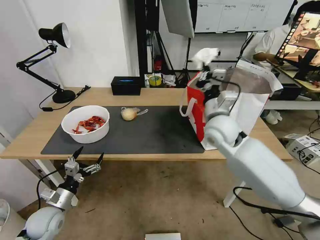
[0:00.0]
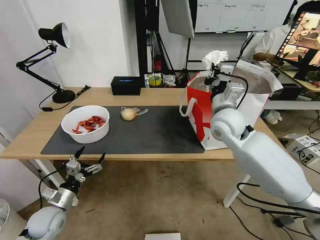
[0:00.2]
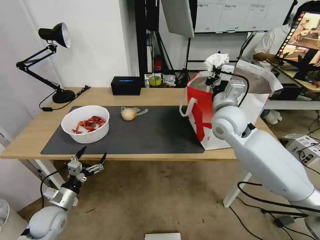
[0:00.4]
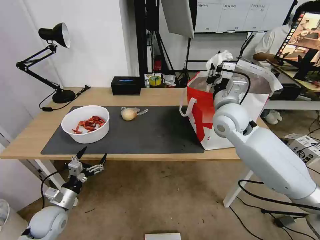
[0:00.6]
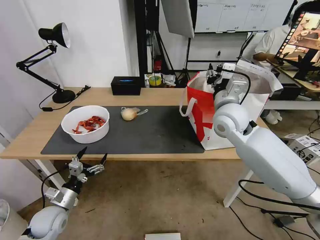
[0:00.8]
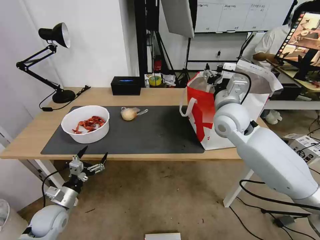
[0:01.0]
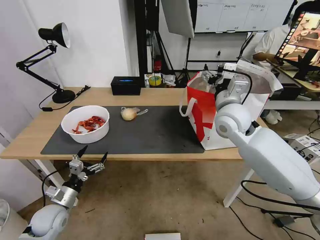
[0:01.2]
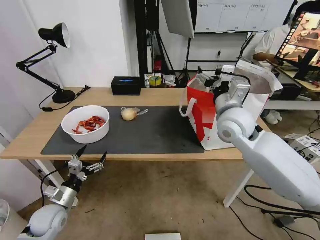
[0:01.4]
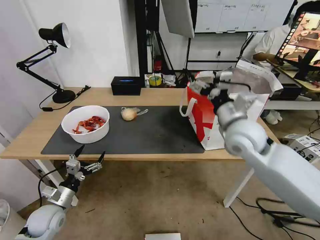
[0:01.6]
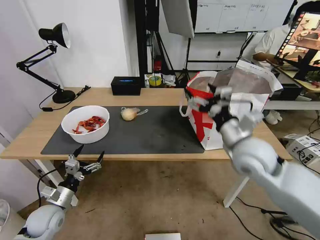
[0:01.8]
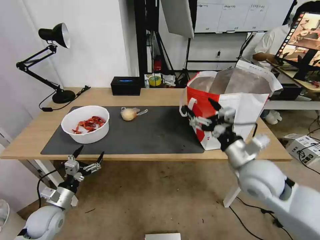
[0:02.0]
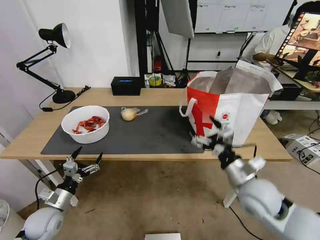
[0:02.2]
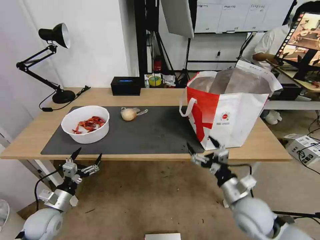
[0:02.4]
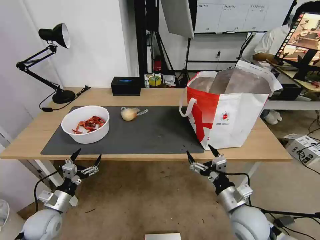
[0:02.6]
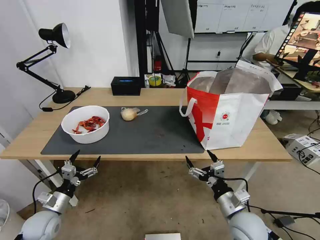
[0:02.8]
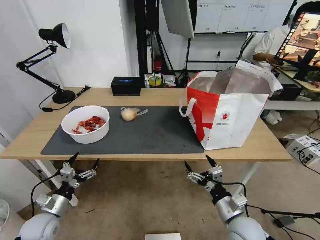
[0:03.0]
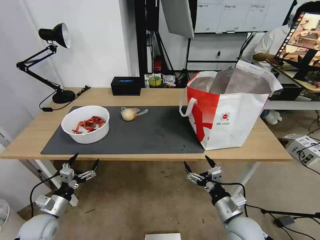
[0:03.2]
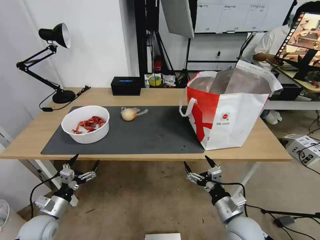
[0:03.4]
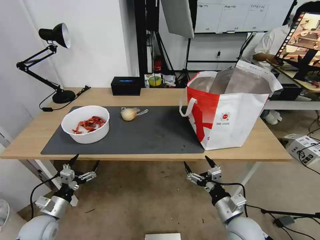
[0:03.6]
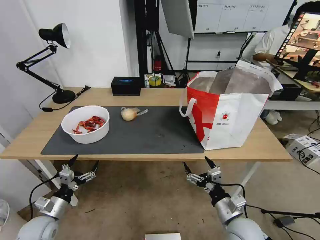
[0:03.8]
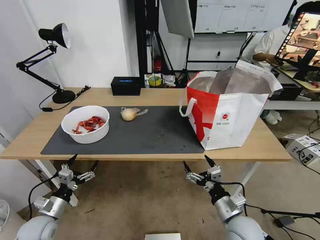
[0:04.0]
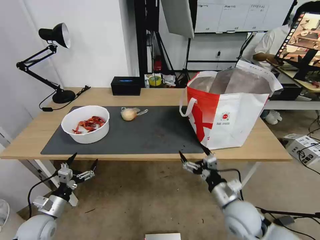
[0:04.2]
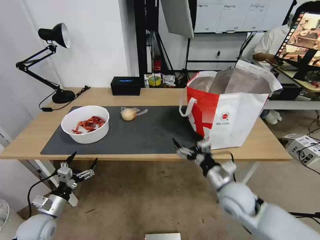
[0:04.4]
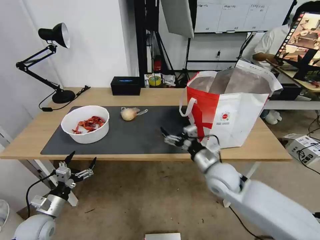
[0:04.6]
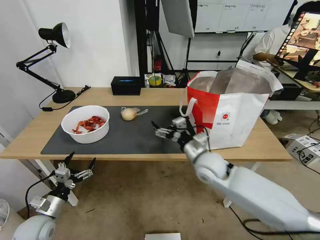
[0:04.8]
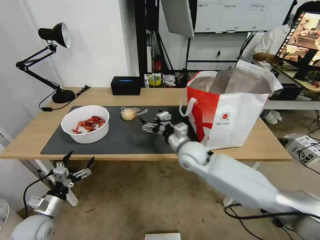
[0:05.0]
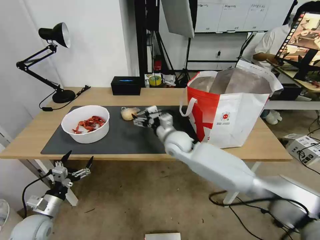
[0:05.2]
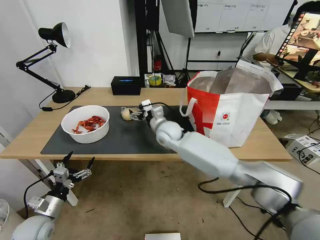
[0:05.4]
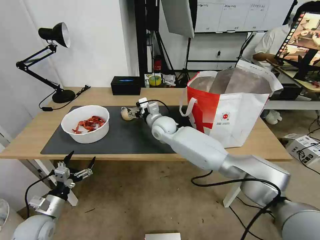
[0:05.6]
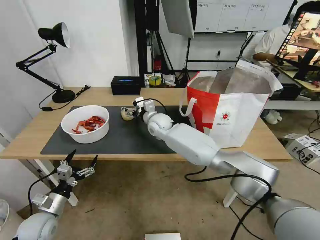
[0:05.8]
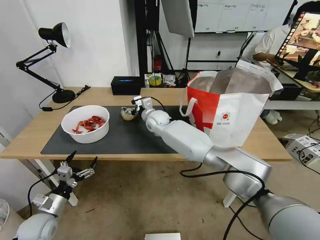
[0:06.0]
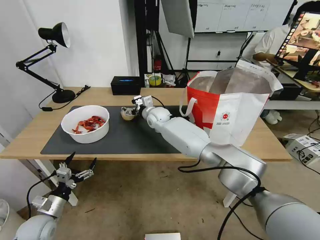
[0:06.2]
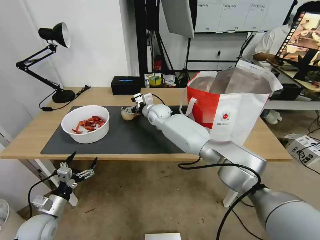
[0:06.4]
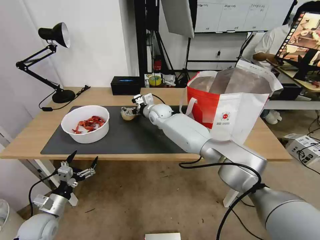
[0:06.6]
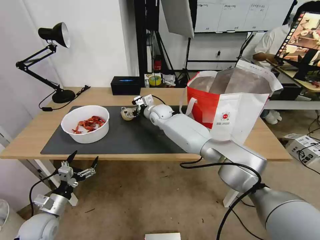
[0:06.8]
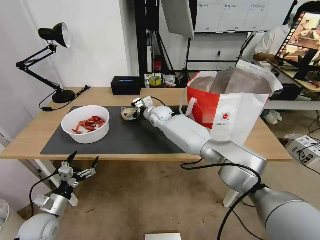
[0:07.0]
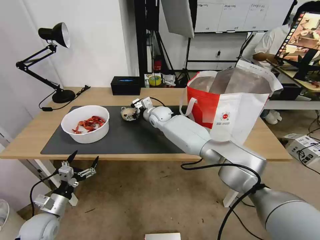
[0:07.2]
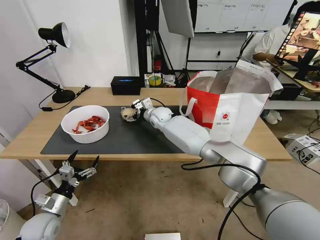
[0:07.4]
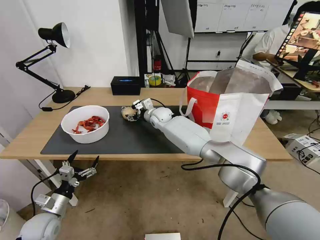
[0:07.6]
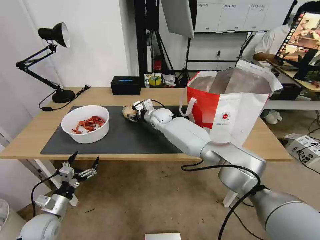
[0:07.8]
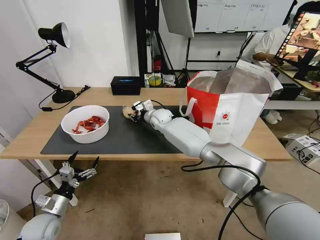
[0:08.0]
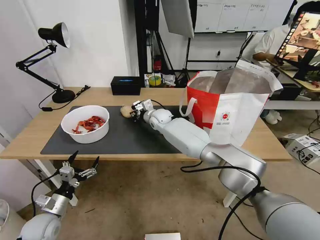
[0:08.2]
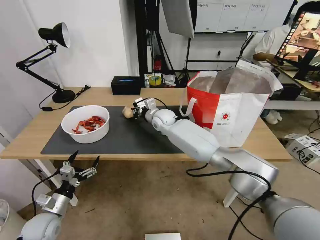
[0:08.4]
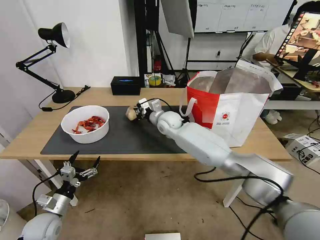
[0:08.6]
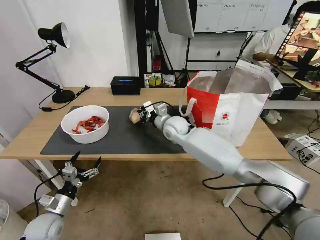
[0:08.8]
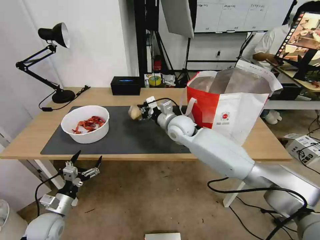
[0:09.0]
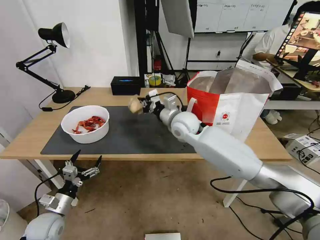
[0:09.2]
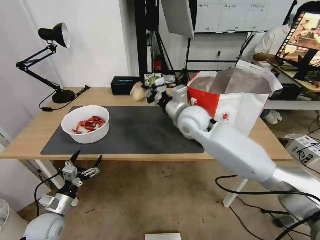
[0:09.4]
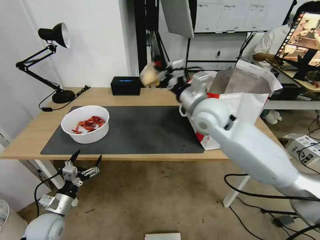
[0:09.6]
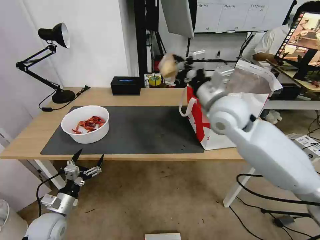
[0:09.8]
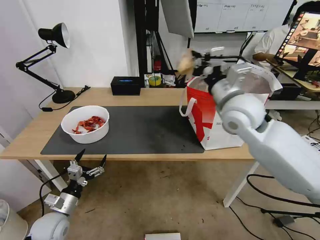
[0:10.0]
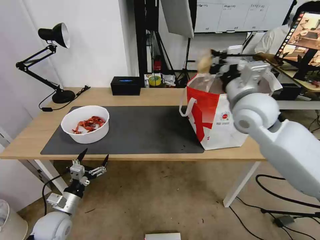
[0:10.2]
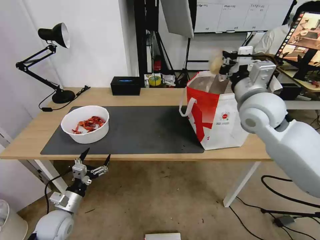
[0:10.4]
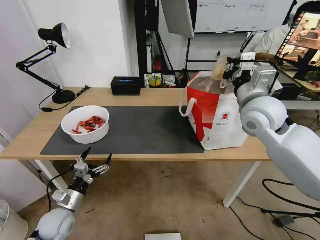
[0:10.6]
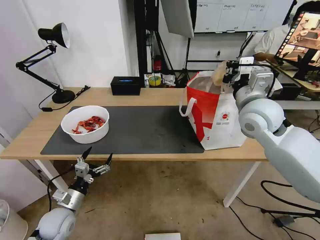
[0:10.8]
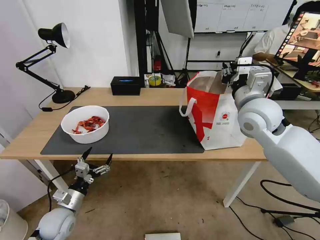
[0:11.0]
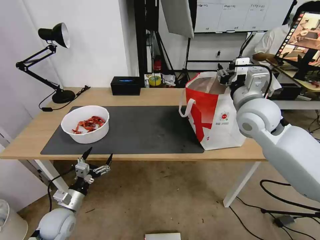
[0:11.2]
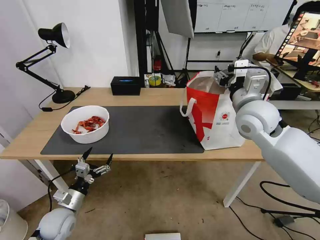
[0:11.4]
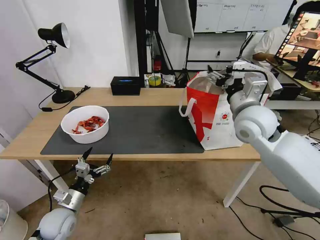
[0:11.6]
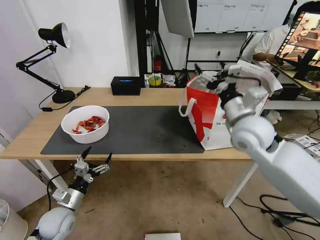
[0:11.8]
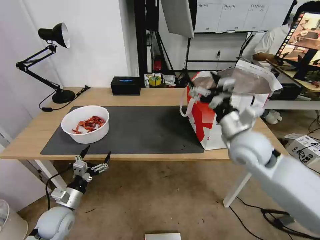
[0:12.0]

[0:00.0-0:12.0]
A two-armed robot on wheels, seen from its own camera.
Task of the whole recording: Pick up the trash from the table and place it into the takeout bag.
0:00.0 to 0:01.6: The right gripper is displaced backward by roughly 5 cm, and opens.
0:01.6 to 0:03.0: The right gripper travels downward and backward by some 30 cm.
0:03.0 to 0:04.4: The right gripper shifts roughly 5 cm forward.
0:04.4 to 0:06.0: The right gripper shifts about 40 cm forward and to the left.
0:06.0 to 0:07.6: The grippers make only small movements.
0:07.6 to 0:09.0: The right gripper moves backward and to the right, some 15 cm, and closes up.
0:09.0 to 0:10.4: The right gripper goes approximately 25 cm to the right, upward and backward.
0:10.4 to 0:12.0: The right gripper heads downward and backward, covering about 10 cm, and opens.

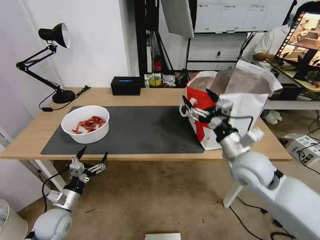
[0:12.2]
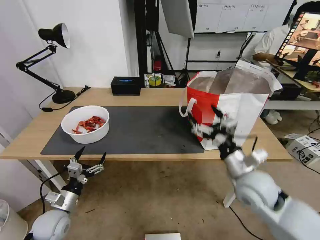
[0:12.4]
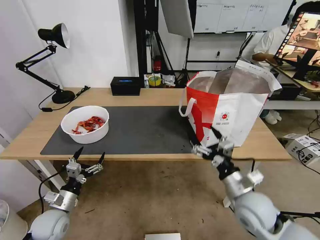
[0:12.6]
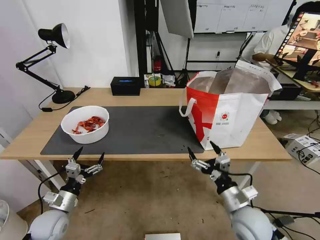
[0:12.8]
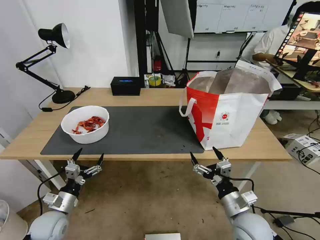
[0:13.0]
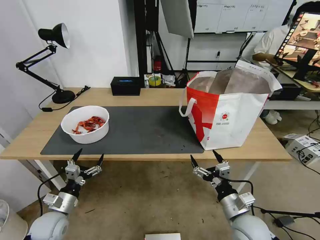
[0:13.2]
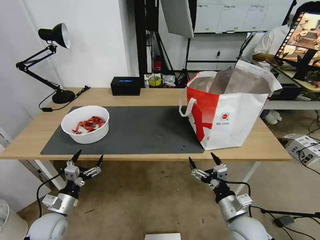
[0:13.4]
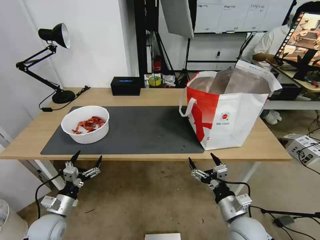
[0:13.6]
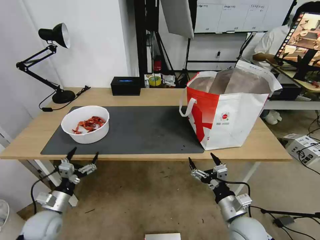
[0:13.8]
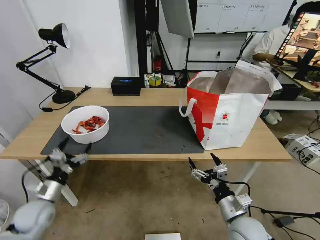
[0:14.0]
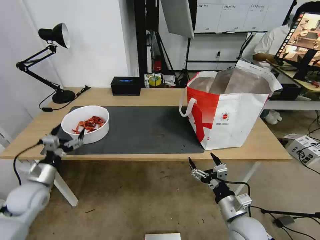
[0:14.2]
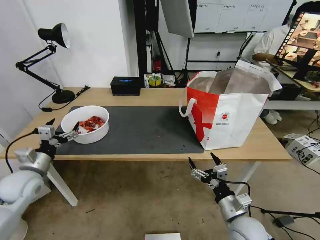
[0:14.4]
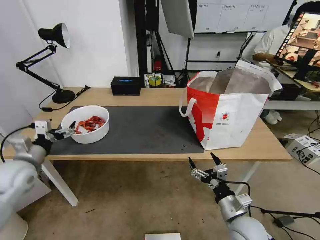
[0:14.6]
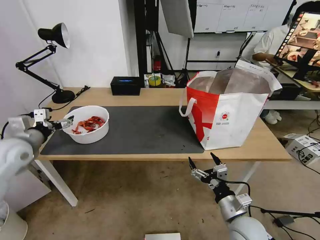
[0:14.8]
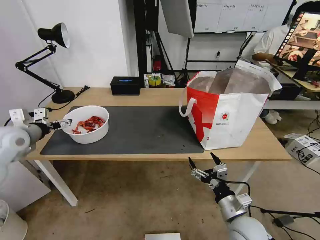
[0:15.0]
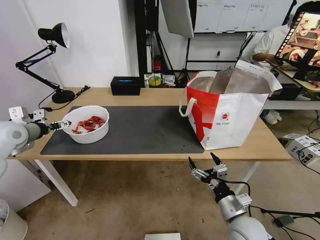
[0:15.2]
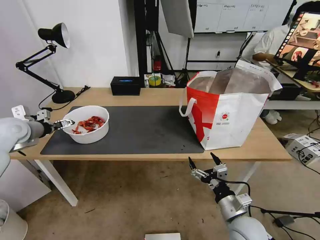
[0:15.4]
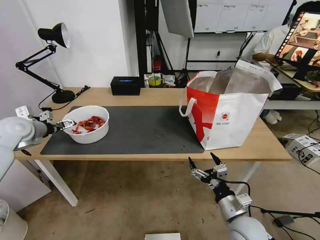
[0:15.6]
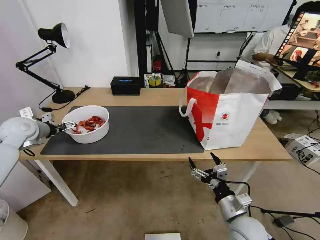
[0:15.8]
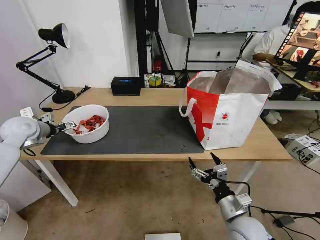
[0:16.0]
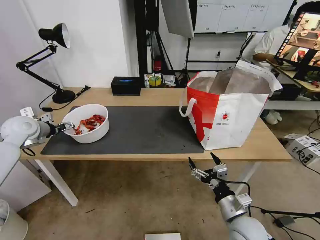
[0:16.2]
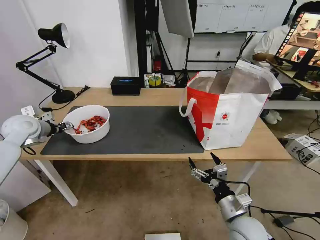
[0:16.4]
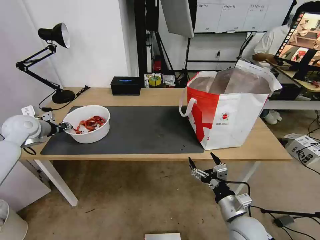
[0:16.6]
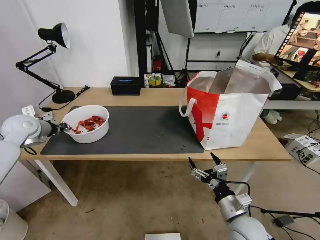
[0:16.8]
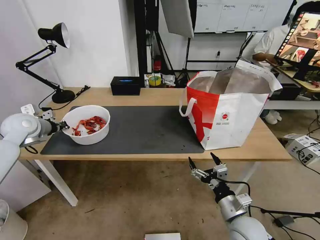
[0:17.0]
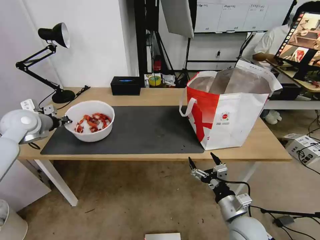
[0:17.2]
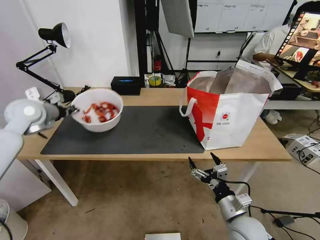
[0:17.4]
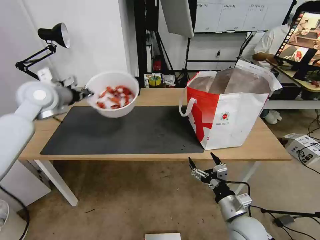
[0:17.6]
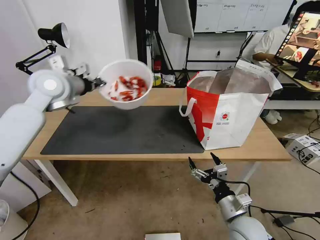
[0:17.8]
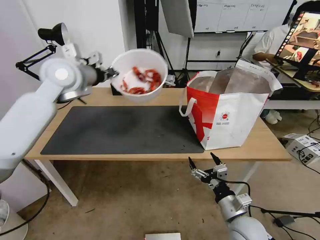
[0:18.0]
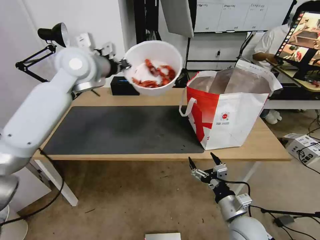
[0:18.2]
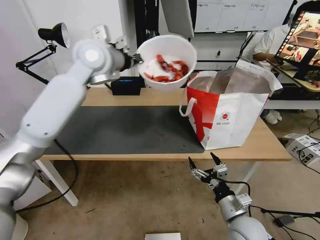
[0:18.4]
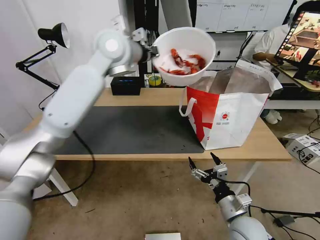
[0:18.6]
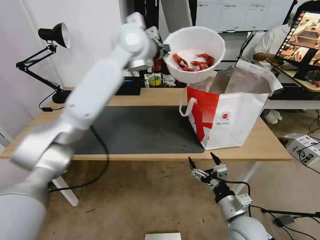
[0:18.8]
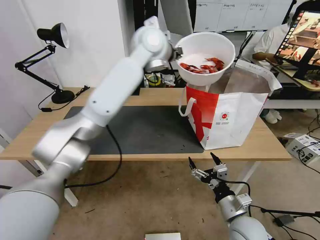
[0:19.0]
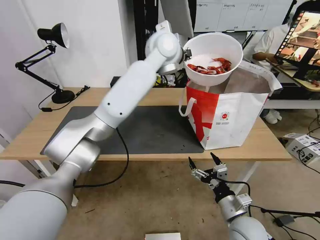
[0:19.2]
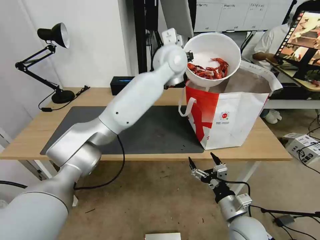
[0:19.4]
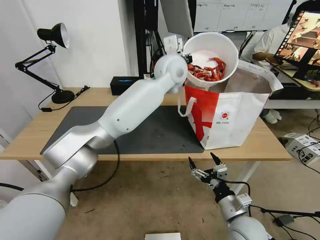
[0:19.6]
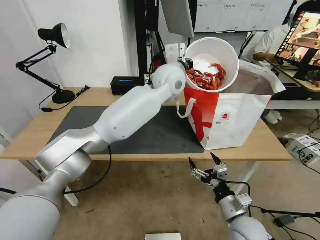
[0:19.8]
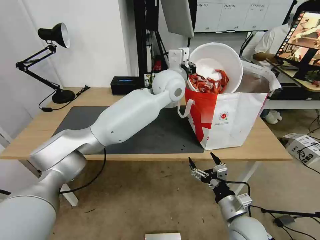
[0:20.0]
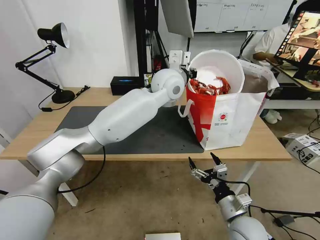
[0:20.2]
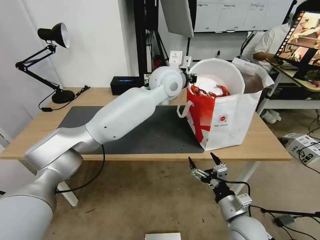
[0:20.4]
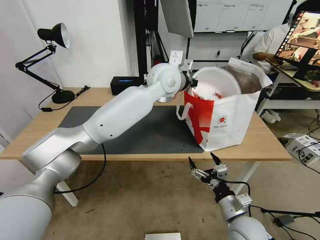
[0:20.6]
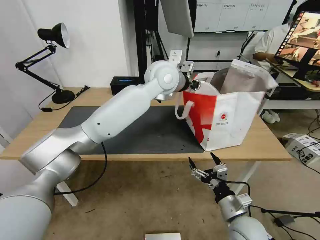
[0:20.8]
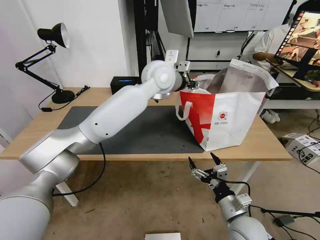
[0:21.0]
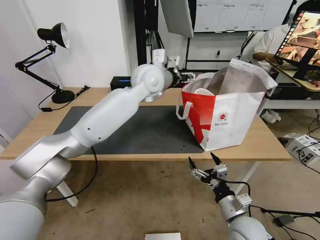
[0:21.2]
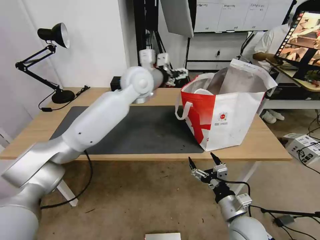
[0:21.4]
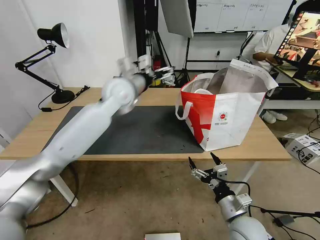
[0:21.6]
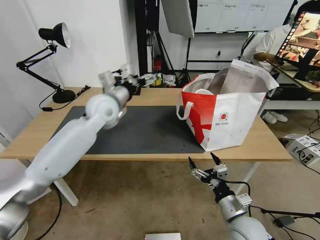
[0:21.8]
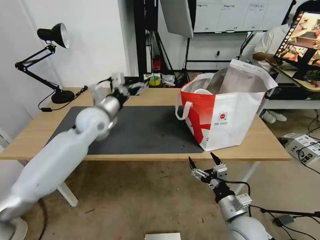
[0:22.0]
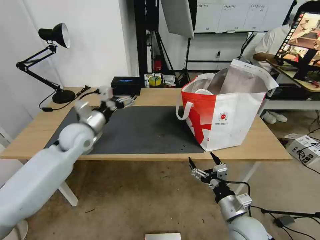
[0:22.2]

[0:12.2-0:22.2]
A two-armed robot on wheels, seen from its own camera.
Task of the whole recording: Pick up the trash from the table and place it into the takeout bag.
0:12.2 to 0:13.6: The right gripper is displaced downward and backward by roughly 20 cm.
0:13.6 to 0:15.0: The left gripper goes some 30 cm upward and forward.
0:15.0 to 0:16.4: The left gripper shifts about 5 cm forward, and closes up.
0:16.4 to 0:18.0: The left gripper moves to the right and upward, some 25 cm, and closes its fingers.
0:18.0 to 0:19.4: The left gripper is displaced to the right by roughly 30 cm.
0:19.4 to 0:20.8: The left gripper shifts by roughly 5 cm, and opens.
0:20.8 to 0:22.2: The left gripper is displaced to the left and downward by some 35 cm, and opens up.
